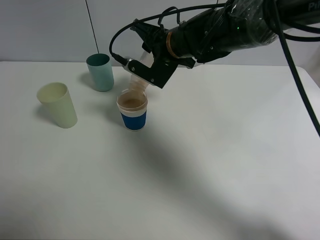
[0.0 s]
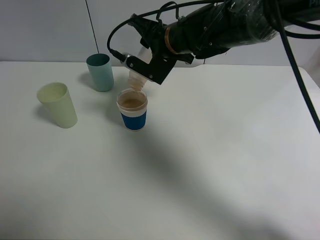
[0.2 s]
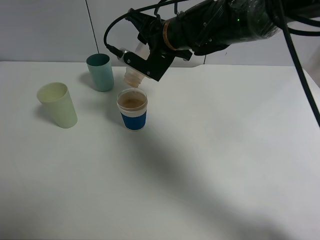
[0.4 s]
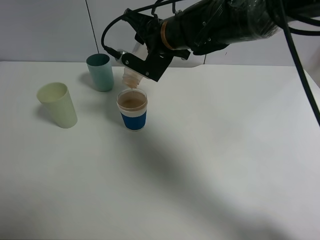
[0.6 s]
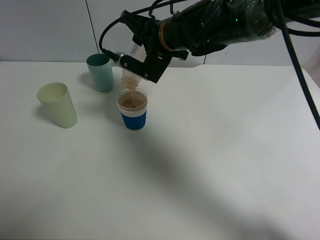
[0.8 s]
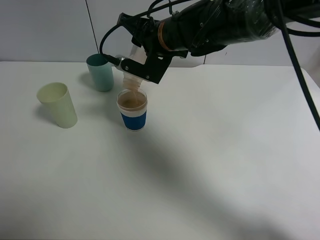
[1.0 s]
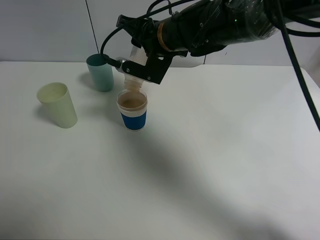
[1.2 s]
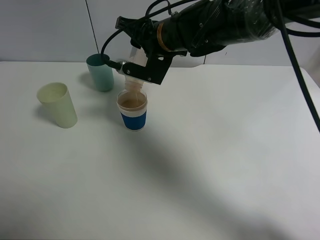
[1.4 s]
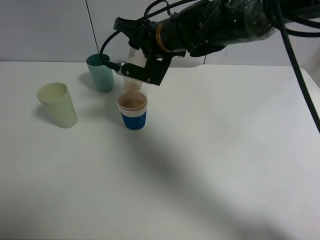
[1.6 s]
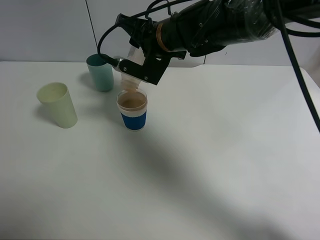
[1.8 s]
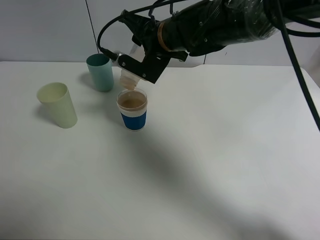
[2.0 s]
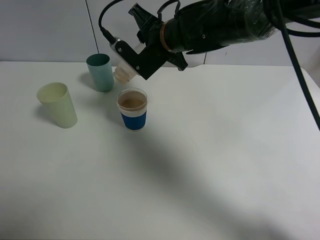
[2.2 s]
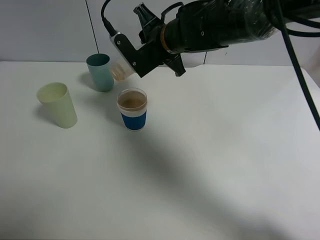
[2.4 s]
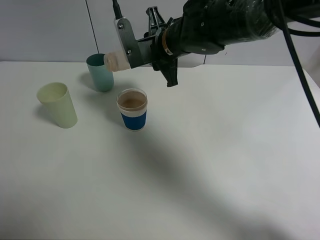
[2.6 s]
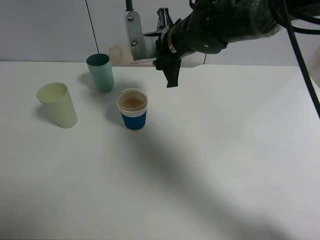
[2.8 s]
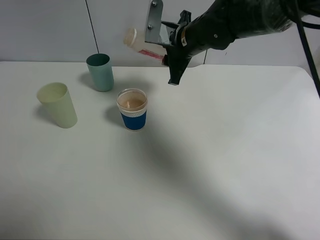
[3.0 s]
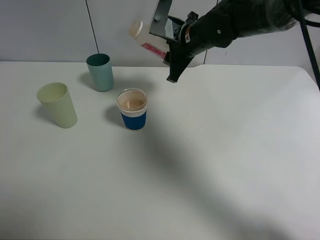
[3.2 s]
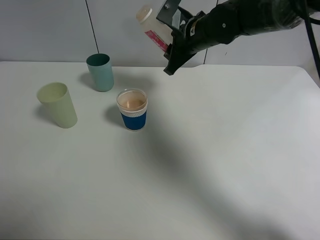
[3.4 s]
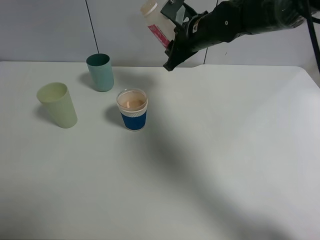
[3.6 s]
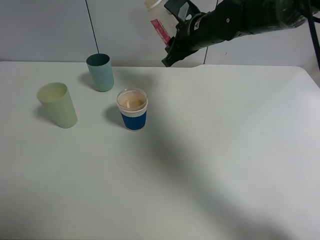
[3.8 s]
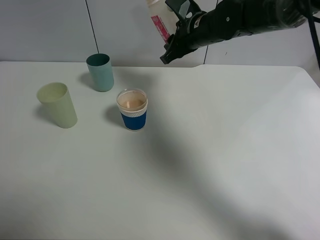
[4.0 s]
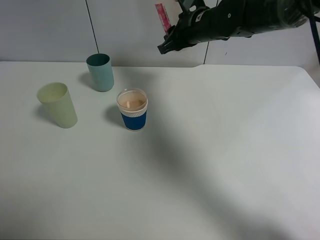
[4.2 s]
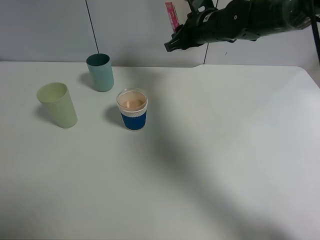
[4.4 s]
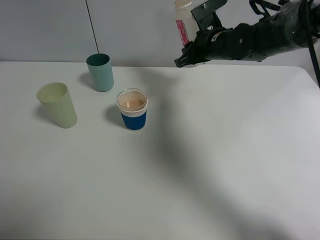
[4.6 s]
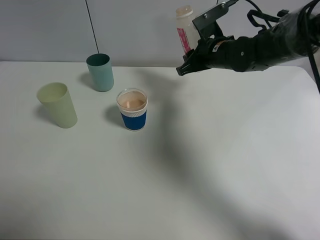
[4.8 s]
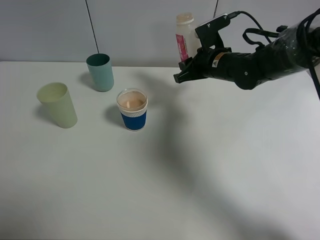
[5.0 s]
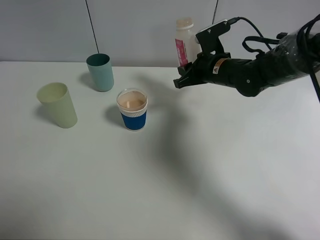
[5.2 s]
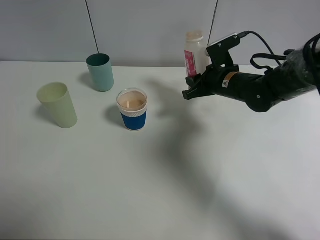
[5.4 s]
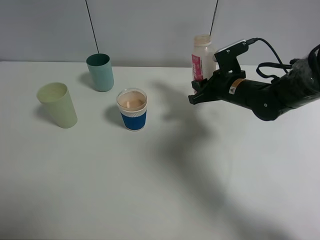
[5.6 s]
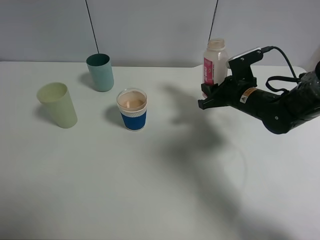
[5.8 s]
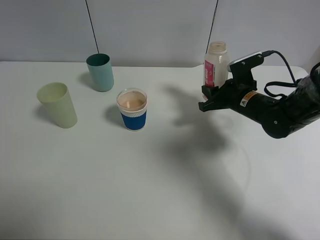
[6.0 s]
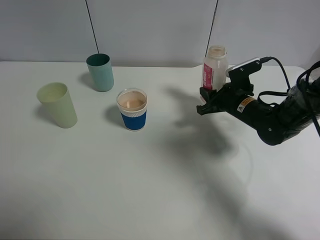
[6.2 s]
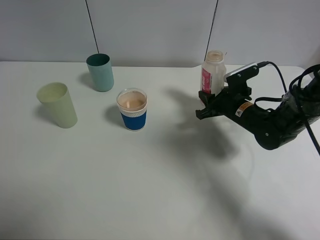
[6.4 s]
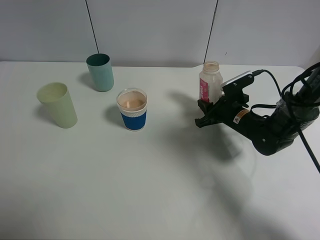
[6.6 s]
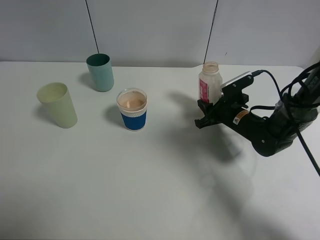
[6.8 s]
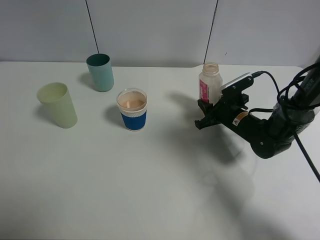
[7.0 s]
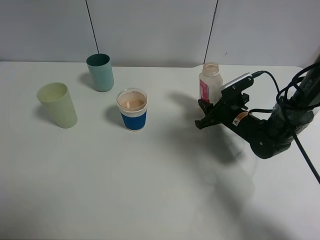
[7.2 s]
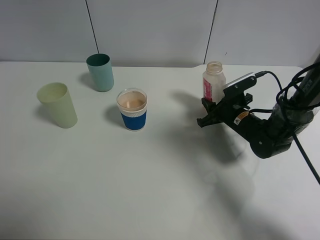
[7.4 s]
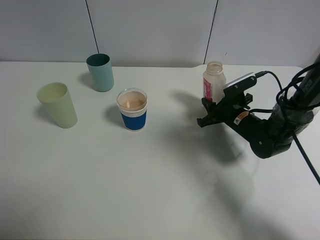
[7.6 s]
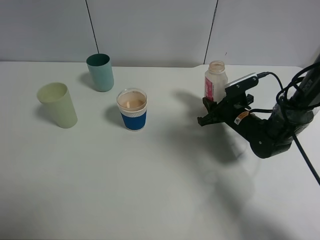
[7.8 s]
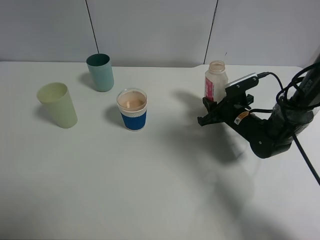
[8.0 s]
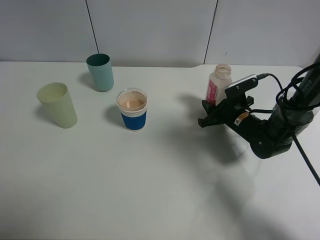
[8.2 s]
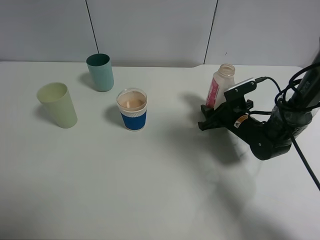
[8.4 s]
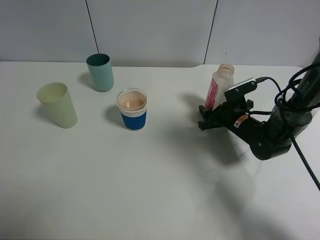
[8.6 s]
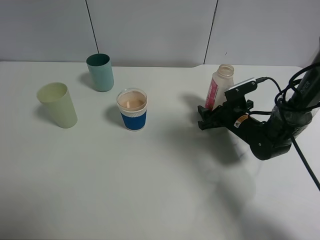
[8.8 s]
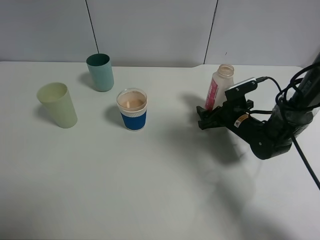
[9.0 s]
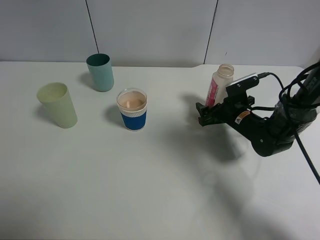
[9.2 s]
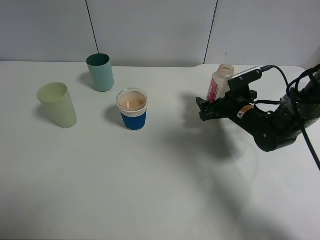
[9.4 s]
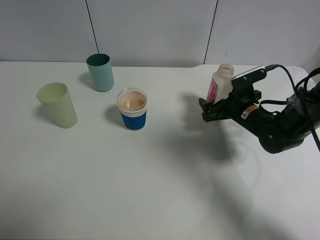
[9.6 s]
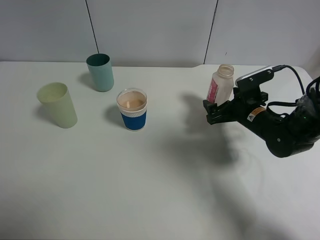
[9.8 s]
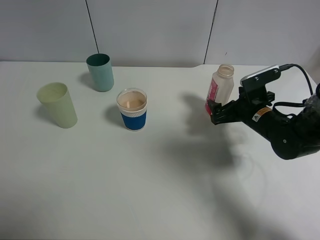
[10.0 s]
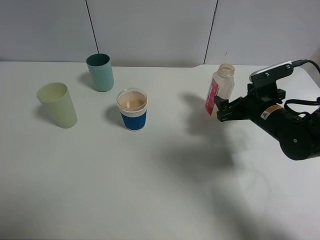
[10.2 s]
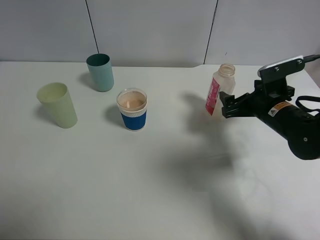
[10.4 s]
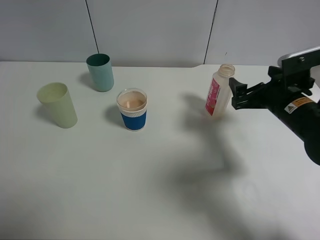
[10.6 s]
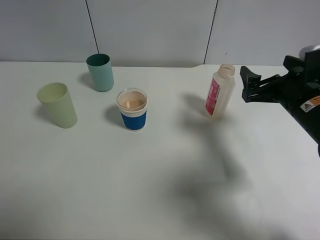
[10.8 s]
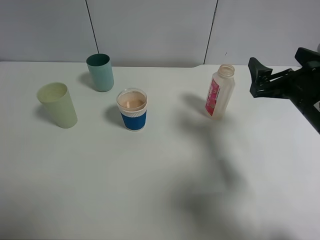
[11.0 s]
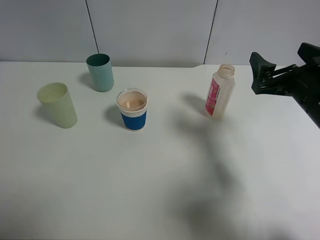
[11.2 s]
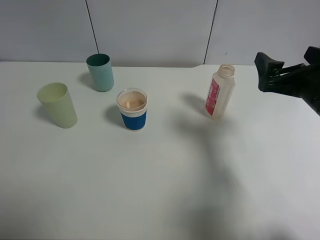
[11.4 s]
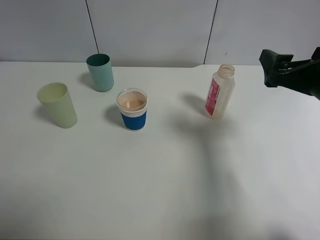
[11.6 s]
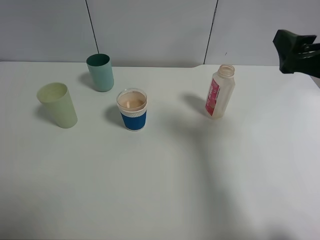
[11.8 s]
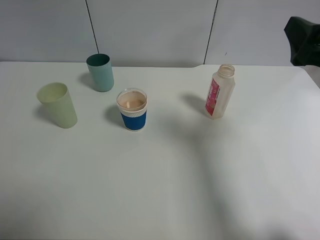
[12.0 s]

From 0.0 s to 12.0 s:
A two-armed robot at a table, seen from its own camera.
Task of the whole recording: use a clamp to hold the bottle of the drink, pour the beverage into a random cup, then clamp the cup containing the drink and pour the drink into another random cup.
Step, from 0.0 s to 2.8 s: Pour the drink into the paper cup with right gripper.
Step, from 3.0 s to 9.8 s: Place the drink bottle on the table with right gripper.
From 0.0 s to 1.6 s: The grippers make only small movements.
From 1.6 s to 3.0 s: The right gripper ends up approximately 5 cm from where it was.
From 3.0 s to 4.4 s: The right gripper moves about 5 cm.
From 4.4 s to 6.0 s: The right gripper travels downward, to the right and backward by approximately 20 cm.
From 6.0 s to 7.6 s: The right gripper goes roughly 5 cm downward.
From 7.6 s to 9.0 s: The right gripper opens its fingers.
From 9.0 s to 10.4 s: The right gripper shifts some 10 cm upward.
From 10.4 s to 12.0 s: The right gripper goes about 20 cm upward and backward.

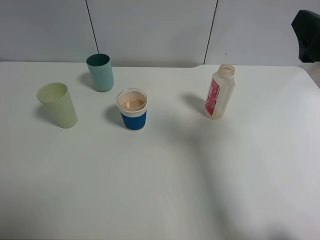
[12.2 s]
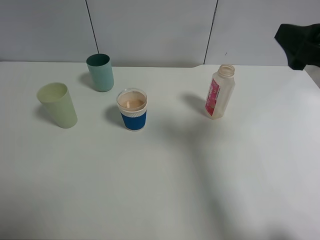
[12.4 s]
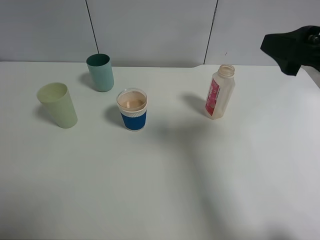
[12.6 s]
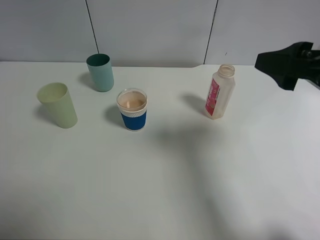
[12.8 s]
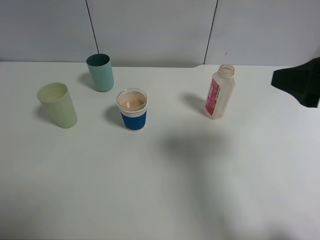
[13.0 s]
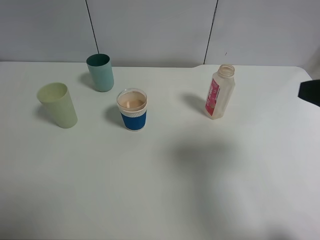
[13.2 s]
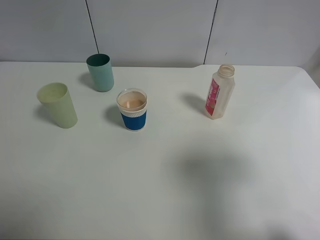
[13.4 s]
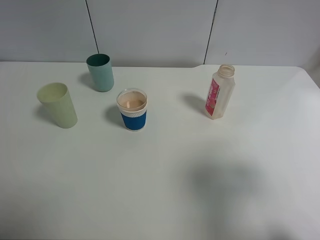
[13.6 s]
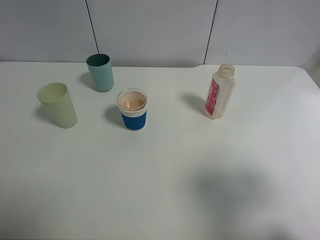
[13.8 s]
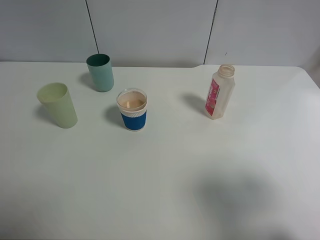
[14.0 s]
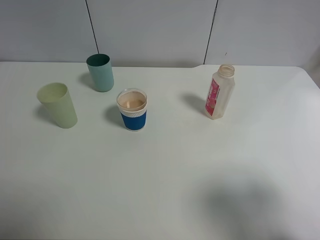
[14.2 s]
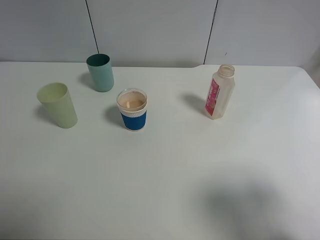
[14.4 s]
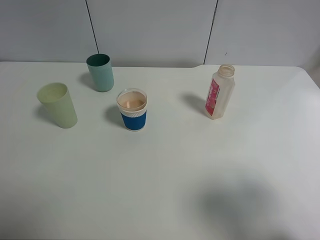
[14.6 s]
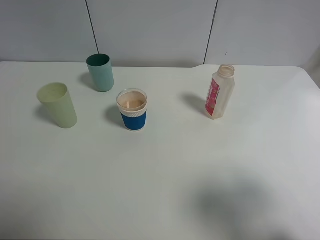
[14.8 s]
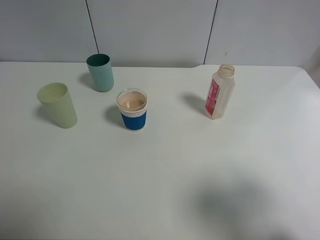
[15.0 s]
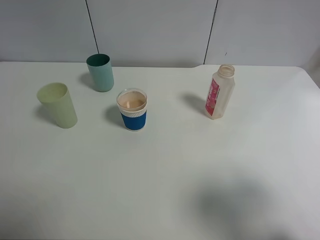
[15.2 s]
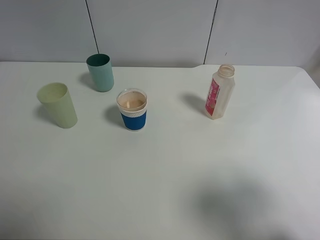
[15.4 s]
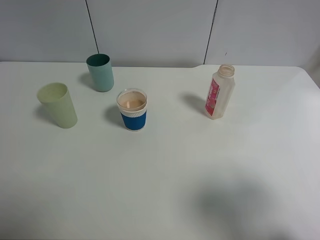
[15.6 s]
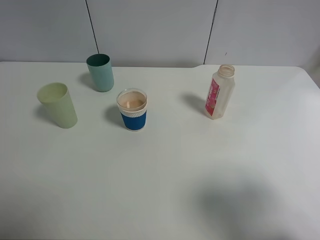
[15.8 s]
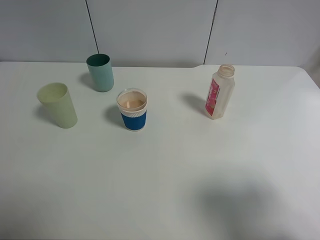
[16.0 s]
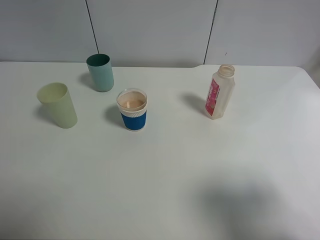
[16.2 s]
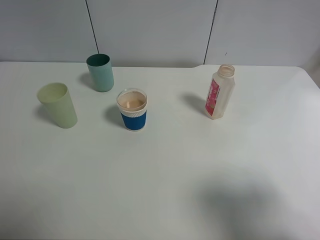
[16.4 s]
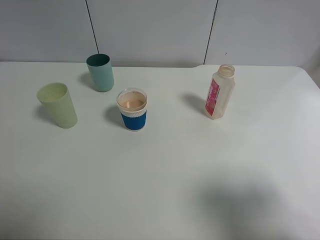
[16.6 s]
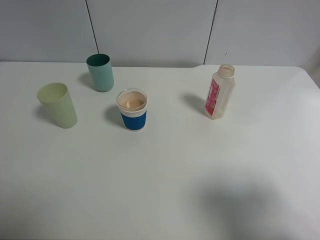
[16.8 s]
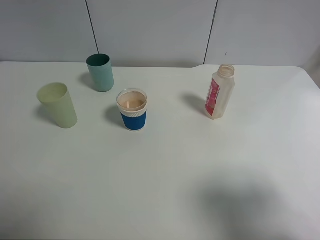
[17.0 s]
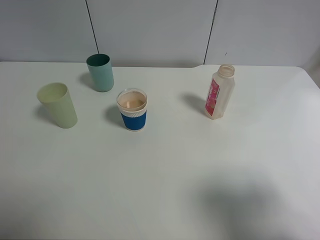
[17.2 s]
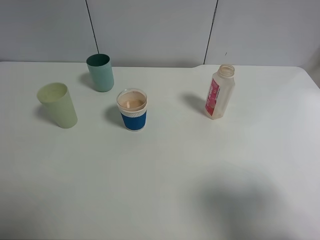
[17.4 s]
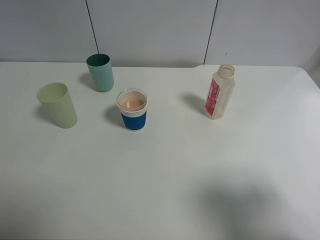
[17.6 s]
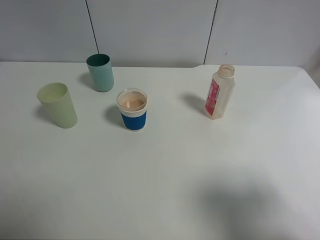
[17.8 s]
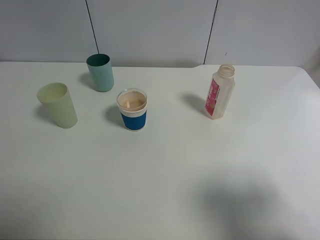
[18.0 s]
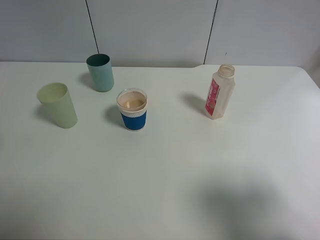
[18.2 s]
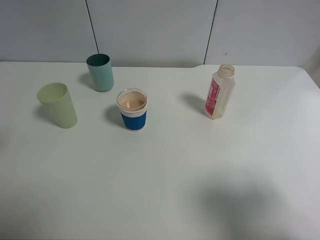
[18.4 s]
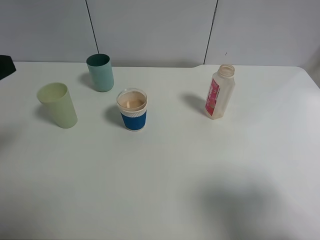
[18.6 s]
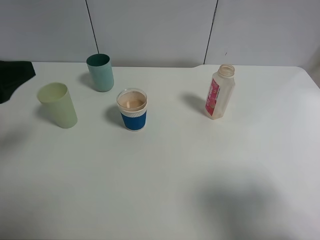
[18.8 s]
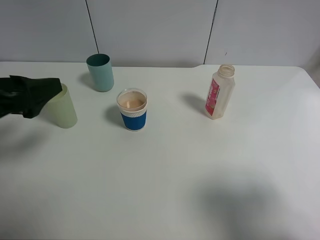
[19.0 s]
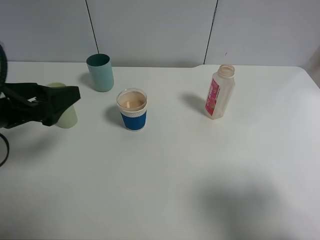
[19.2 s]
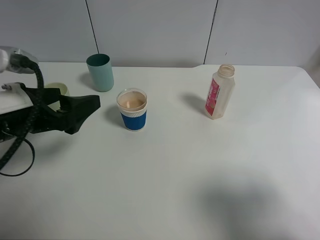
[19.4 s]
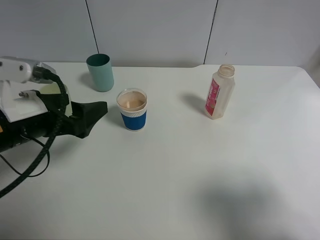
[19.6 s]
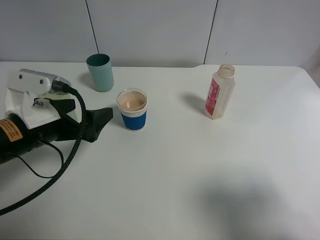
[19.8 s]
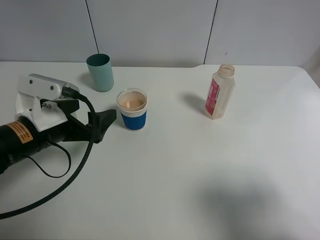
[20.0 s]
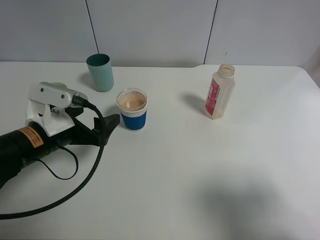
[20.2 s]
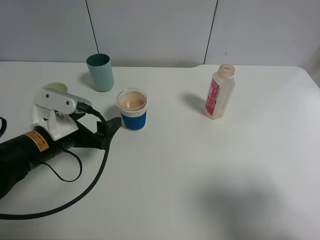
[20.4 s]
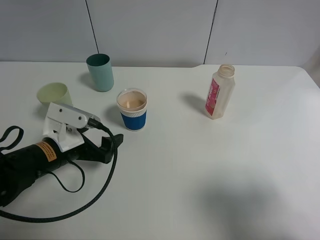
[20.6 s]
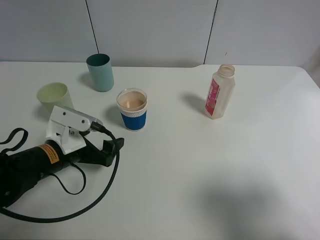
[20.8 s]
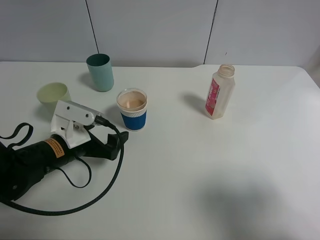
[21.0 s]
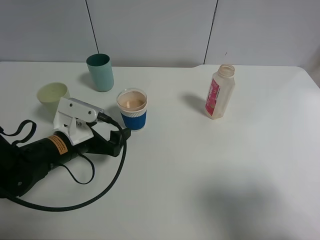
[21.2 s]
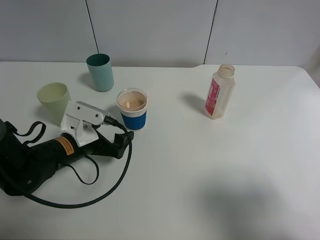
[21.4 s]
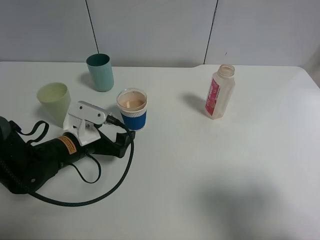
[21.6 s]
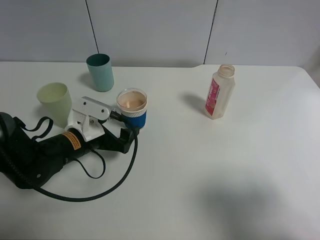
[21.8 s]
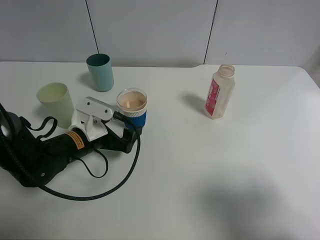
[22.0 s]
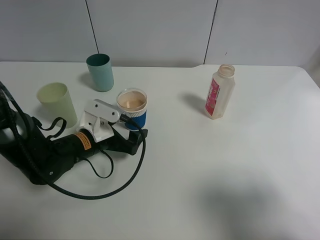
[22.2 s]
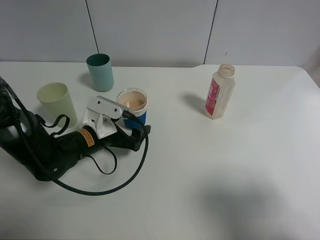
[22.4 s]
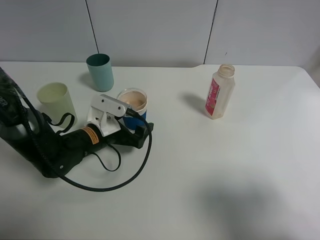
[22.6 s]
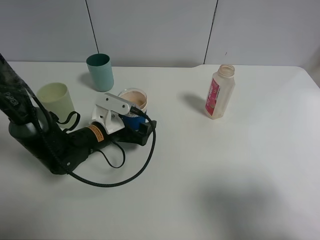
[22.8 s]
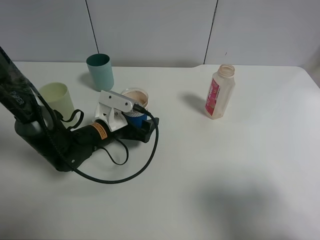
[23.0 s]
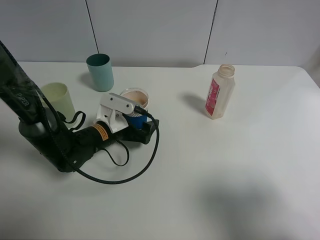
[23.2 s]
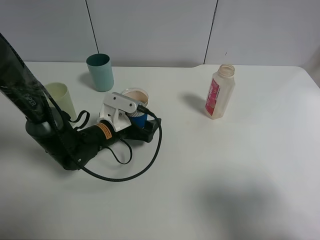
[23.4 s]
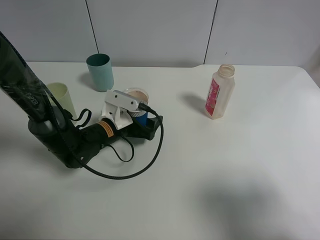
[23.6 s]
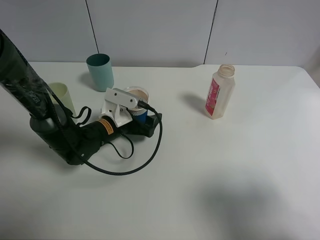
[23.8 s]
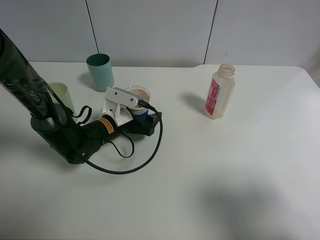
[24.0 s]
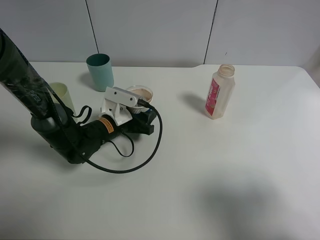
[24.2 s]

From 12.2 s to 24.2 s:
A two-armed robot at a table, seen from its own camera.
Task of the whole recording: use a clamp to hold the bottle of the drink, pour the beverage into a random cup, then clamp the cup containing the drink and pour the drink into another random cup.
From 12.2 s to 13.8 s: The right gripper is displaced backward by some 10 cm.
From 18.2 s to 19.8 s: The left gripper goes some 20 cm downward, forward and to the right.
From 19.8 s to 21.2 s: The left gripper moves downward, approximately 10 cm.
From 21.2 s to 22.6 s: The left gripper shifts by roughly 5 cm.
From 22.6 s to 24.2 s: The left gripper ends up roughly 5 cm from where it was, and closes up.
